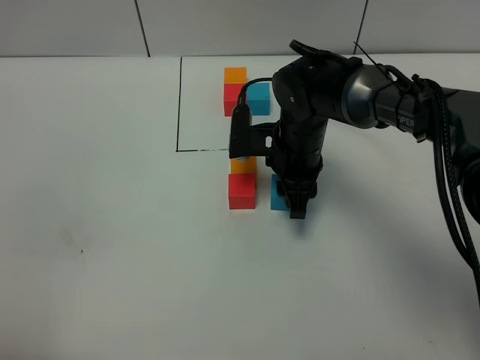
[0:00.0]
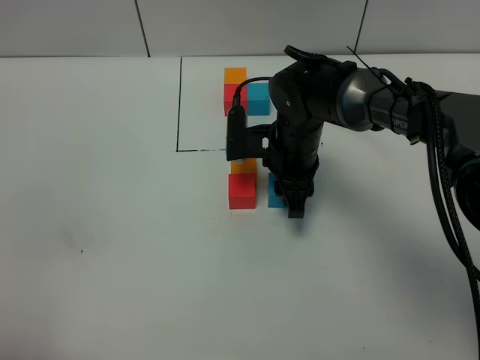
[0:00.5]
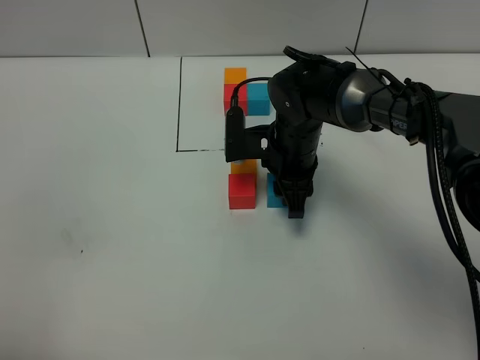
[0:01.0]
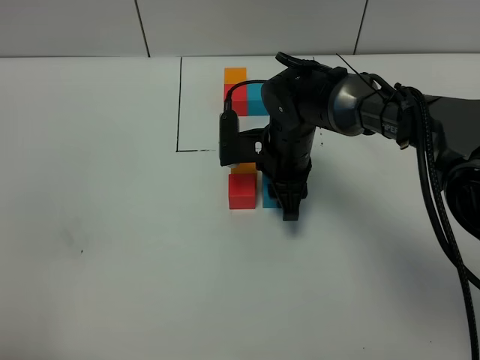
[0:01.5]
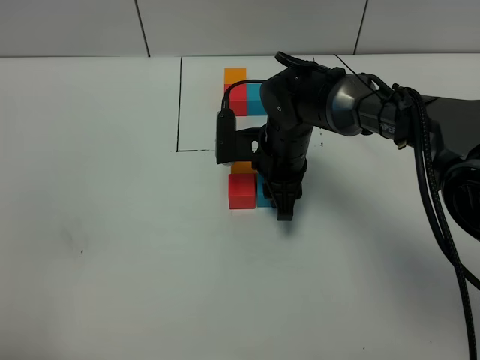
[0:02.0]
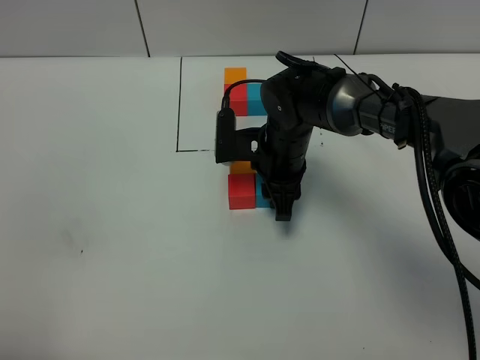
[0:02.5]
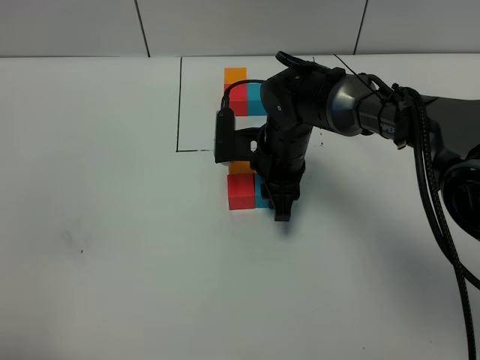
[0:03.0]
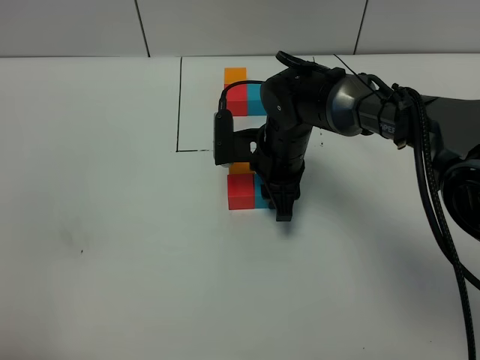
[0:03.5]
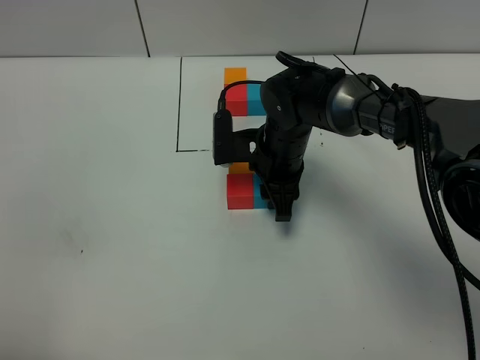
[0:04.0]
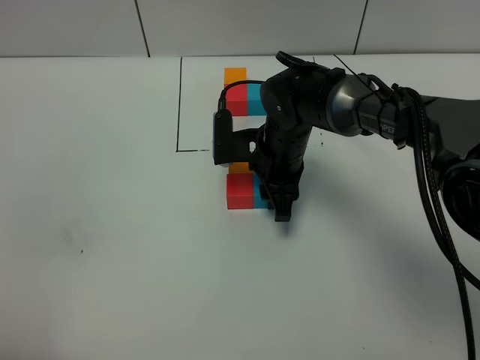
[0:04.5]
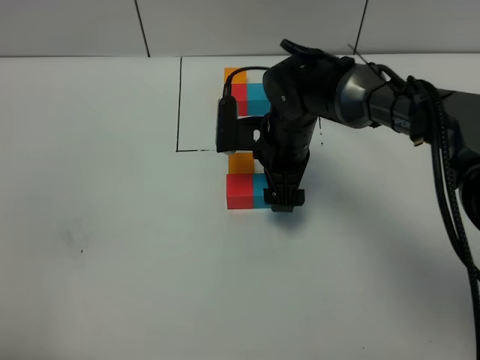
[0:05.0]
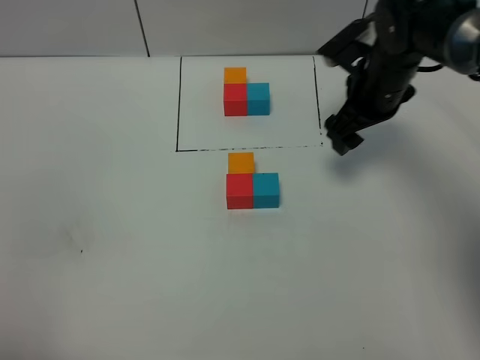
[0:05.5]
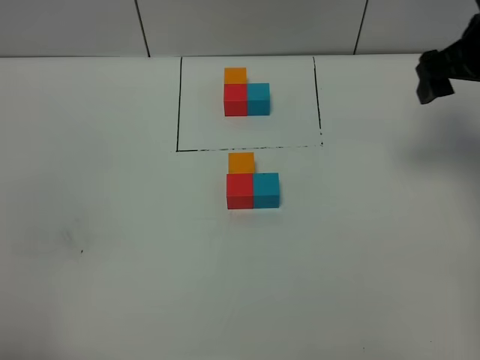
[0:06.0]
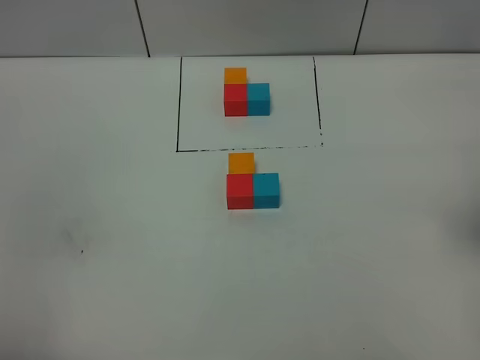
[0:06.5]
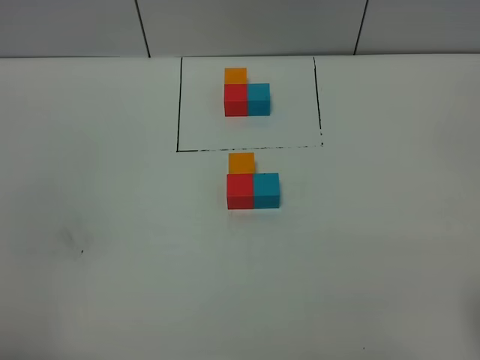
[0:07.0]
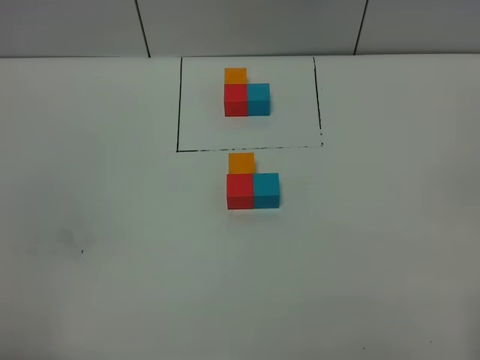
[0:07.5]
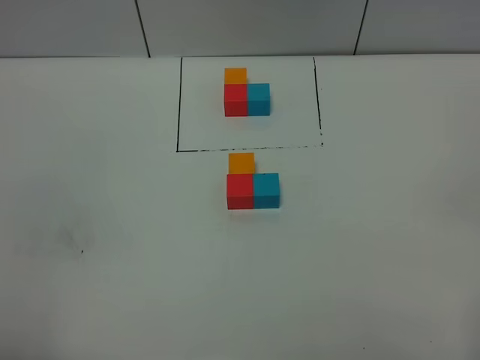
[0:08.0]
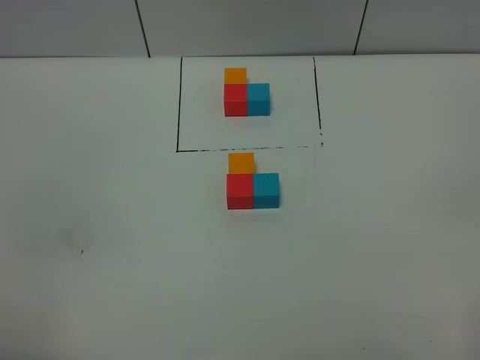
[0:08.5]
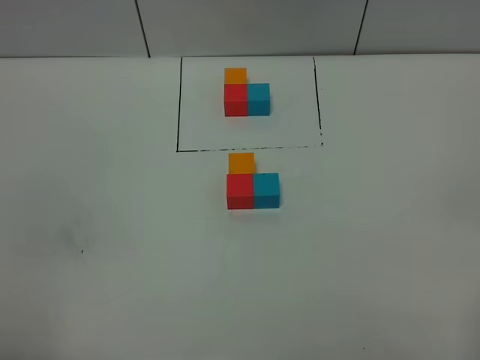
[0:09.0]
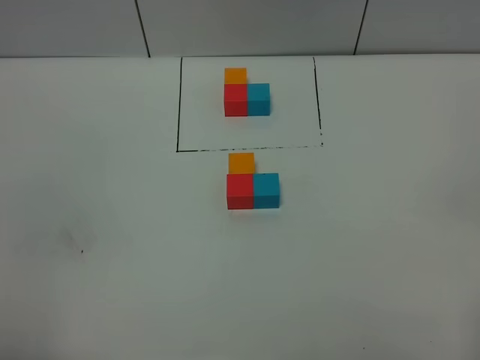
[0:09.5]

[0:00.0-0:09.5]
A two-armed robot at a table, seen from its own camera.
Task of the whole recording: According to the building block template in front, assemble the scattered blocks together.
Step, 0:00.0 to 0:04.5: Put the blue build block on the right of the red build block.
0:00.0 to 0:02.0: The grippers move only a little.
0:02.0 to 0:04.0: Both grippers stay about where they are.
0:04.0 to 0:05.5: The right gripper moves to the right and upward, some 15 cm, and opens its fingers.
0:05.5 to 0:07.5: The right gripper goes roughly 40 cm backward.
